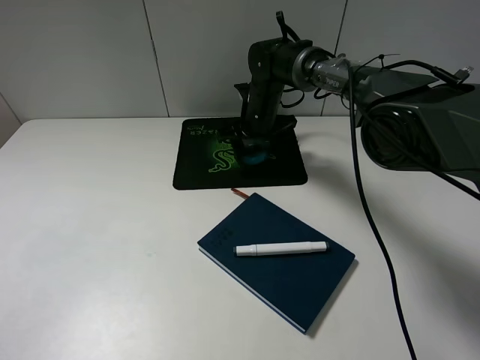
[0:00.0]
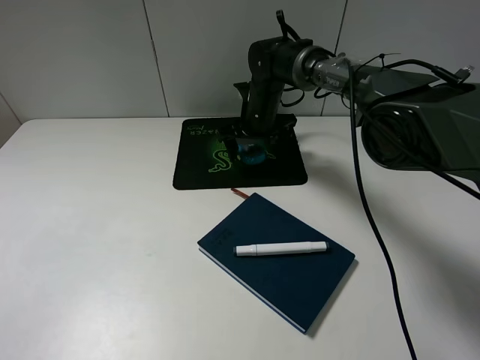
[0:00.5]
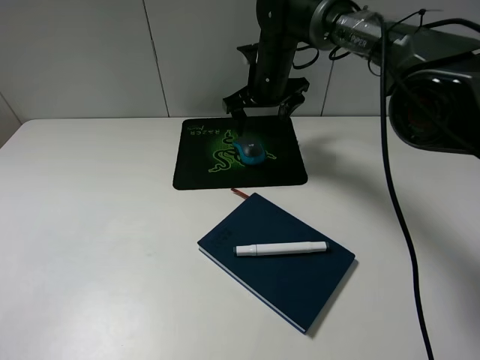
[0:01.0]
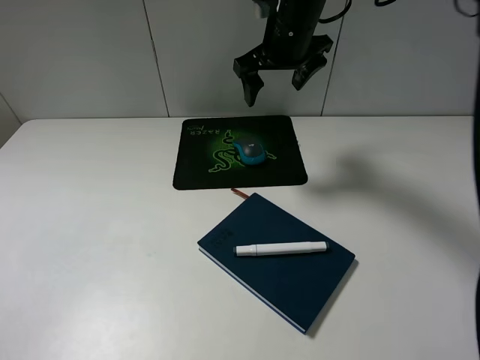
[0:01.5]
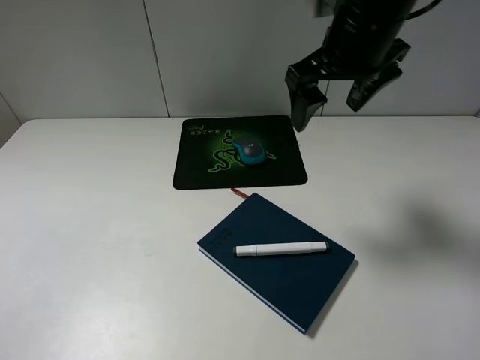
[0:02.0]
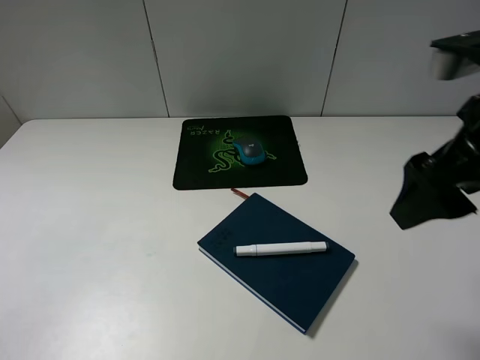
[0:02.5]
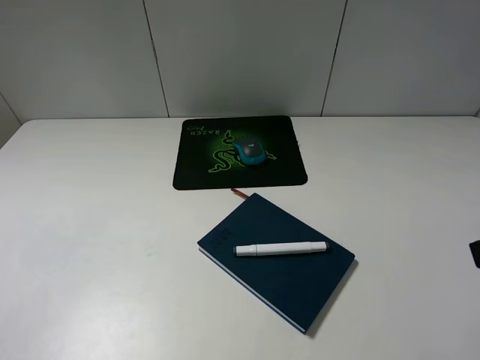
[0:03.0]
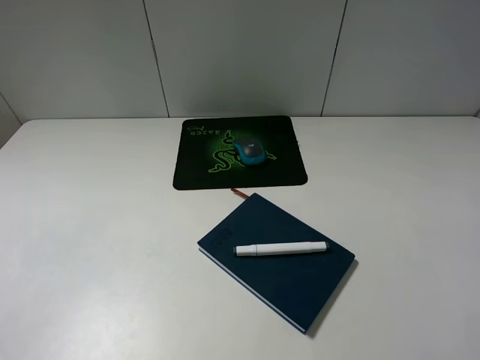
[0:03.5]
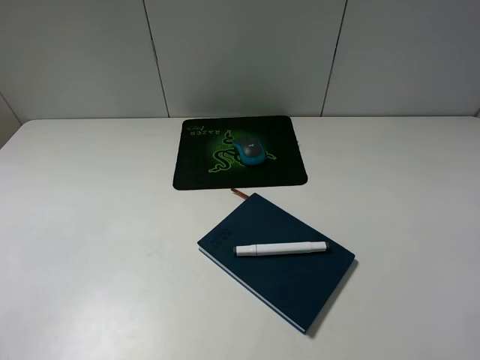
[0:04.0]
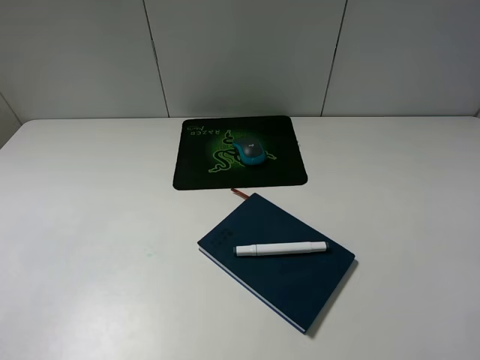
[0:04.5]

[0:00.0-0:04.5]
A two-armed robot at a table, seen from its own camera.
0.0 to 2.0 s: The right gripper is displaced upward, backward and to the right by about 30 cm.
2.0 to 4.5 s: The right gripper heads backward and to the right, covering about 35 cm.

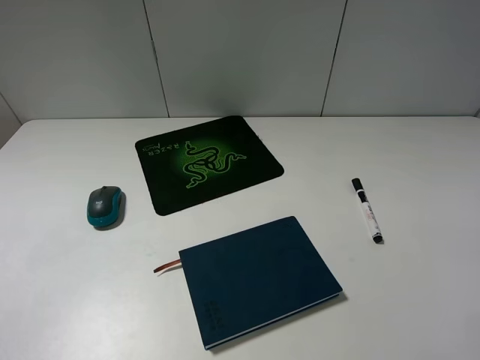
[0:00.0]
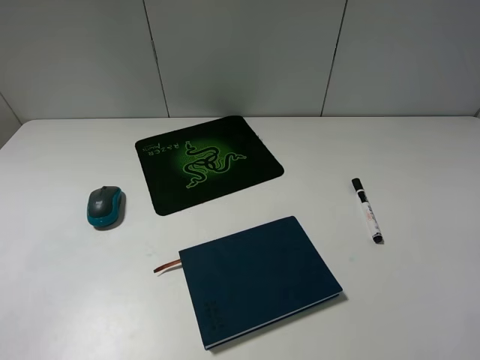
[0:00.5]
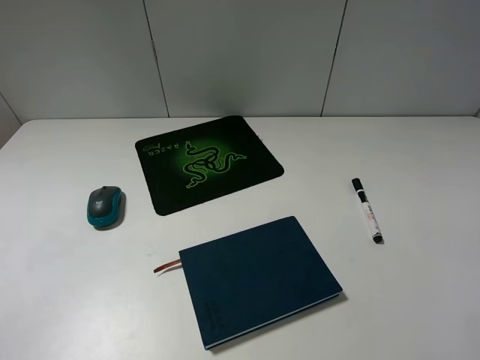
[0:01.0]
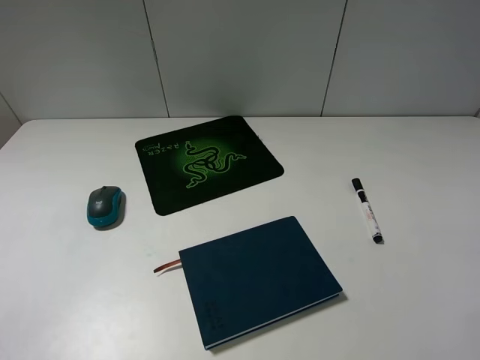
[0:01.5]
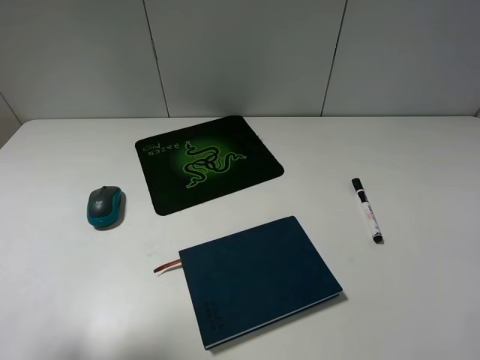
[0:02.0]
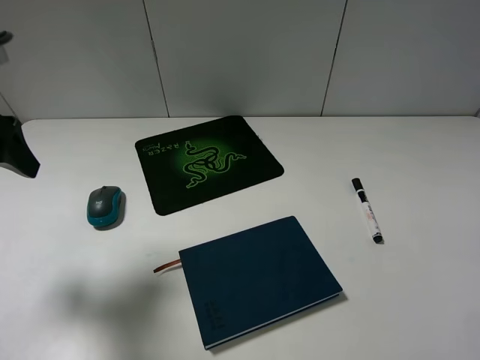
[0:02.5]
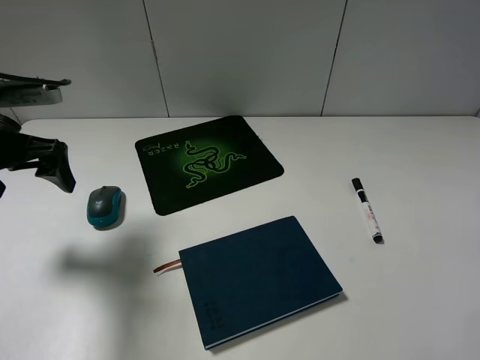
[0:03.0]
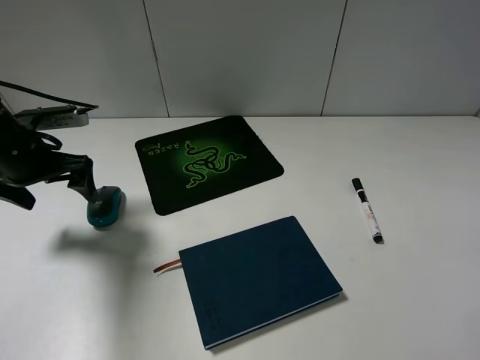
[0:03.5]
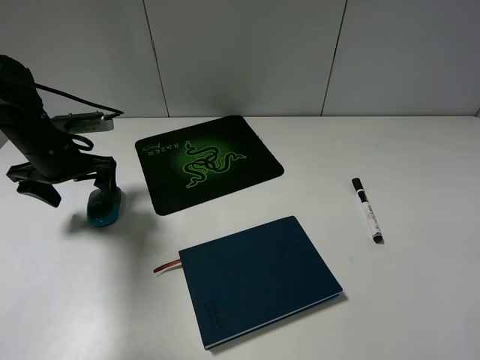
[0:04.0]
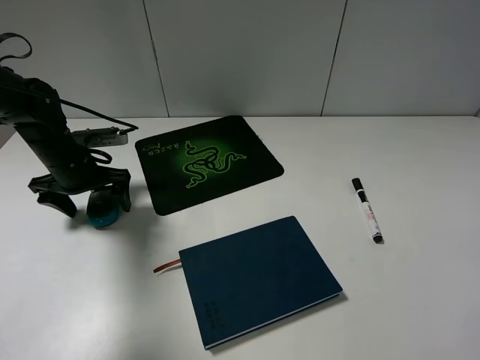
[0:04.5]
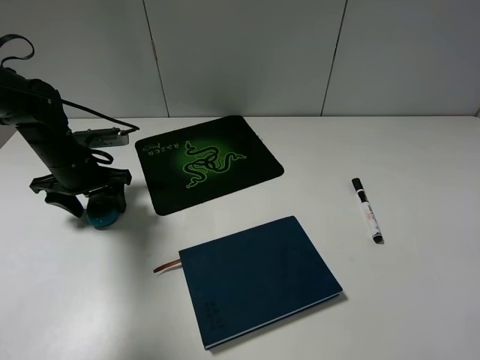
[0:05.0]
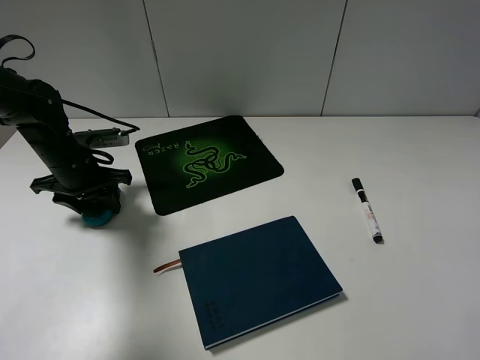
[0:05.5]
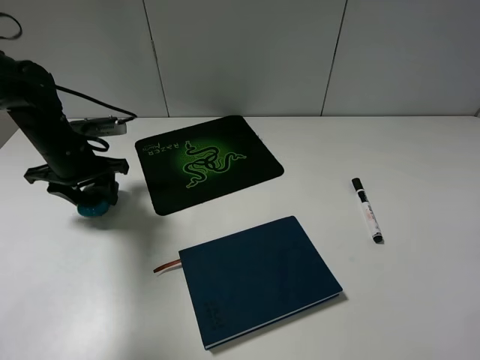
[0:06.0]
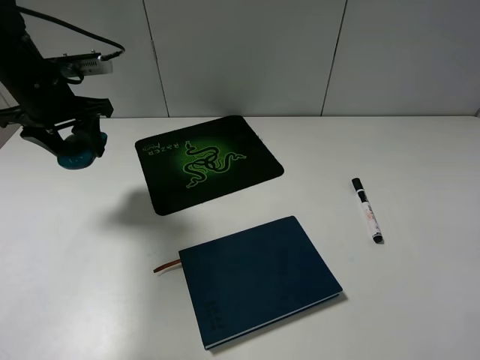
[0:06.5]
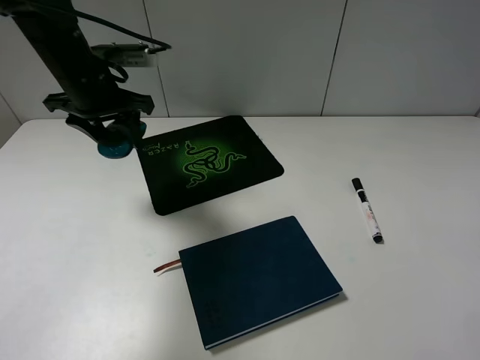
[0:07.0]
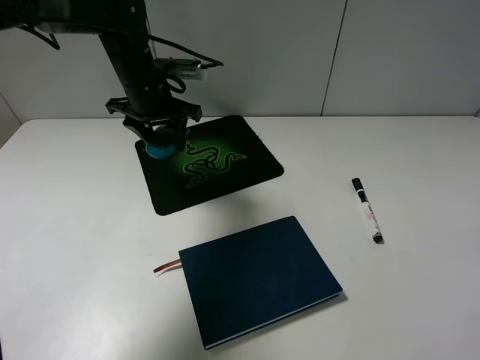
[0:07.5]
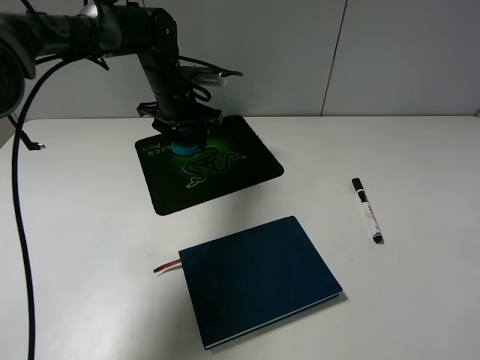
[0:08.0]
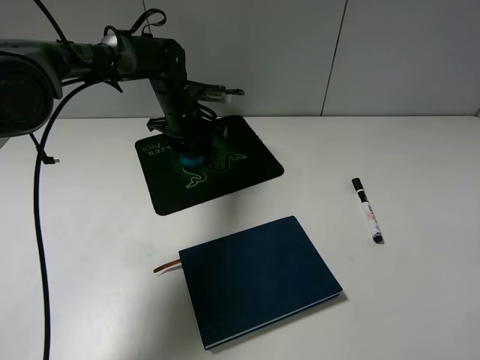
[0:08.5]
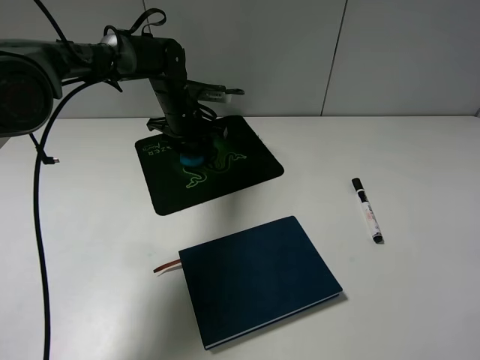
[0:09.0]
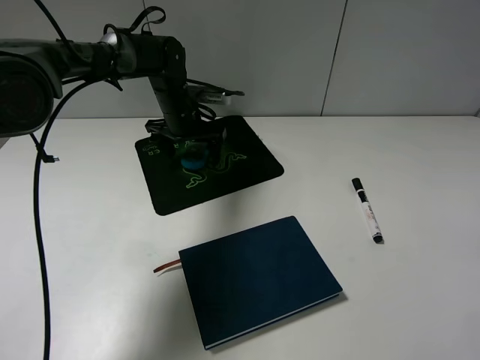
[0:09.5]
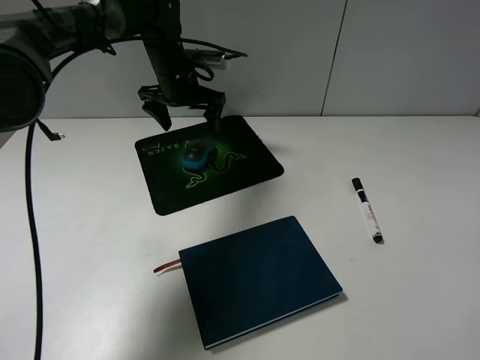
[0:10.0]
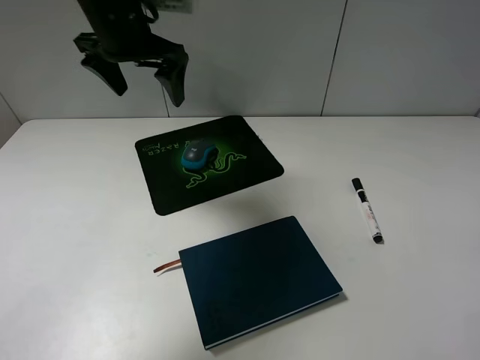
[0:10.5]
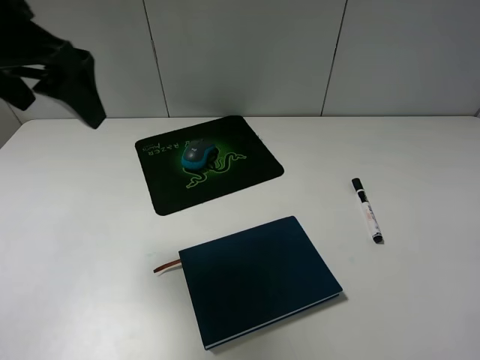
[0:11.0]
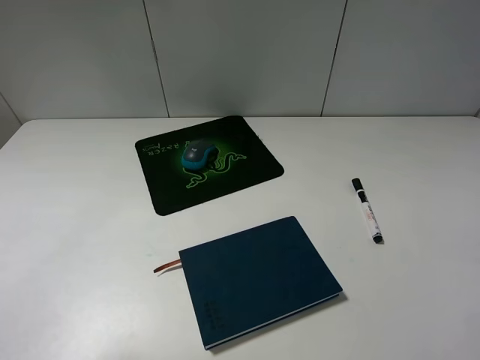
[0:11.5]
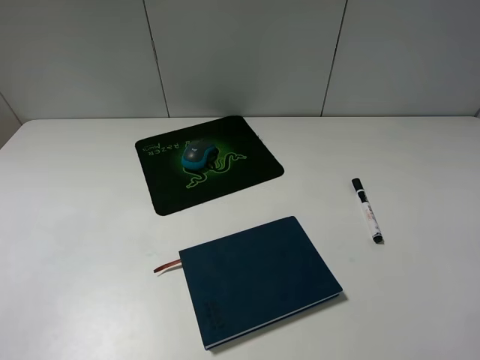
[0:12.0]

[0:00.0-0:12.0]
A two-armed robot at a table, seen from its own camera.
Step, 0.0 to 5.0 s: Grasp the mouse with the left gripper.
Step, 5.5 to 9.5 s: Place the mouse on the mouse pad with the left gripper.
0.0 to 2.0 s: The left gripper shifts some 15 cm forward and upward.
2.0 to 4.0 s: The left gripper goes about 30 cm forward and downward.
4.0 to 6.0 s: The left gripper closes.
6.0 to 8.0 s: The left gripper travels to the right and forward by about 20 cm.
8.0 to 10.0 s: The left gripper opens.
10.0 to 12.0 s: The left gripper heads backward and to the left, covering roughly 50 cm.

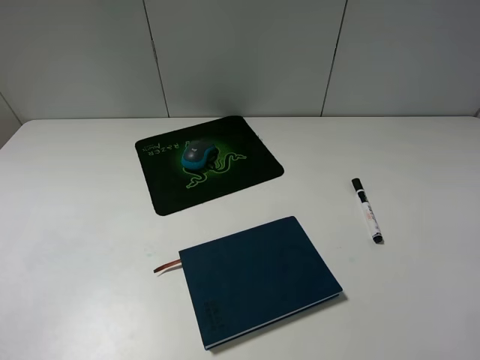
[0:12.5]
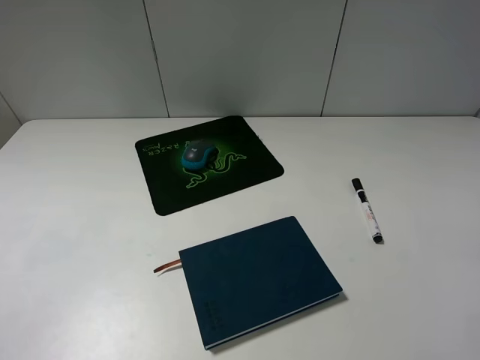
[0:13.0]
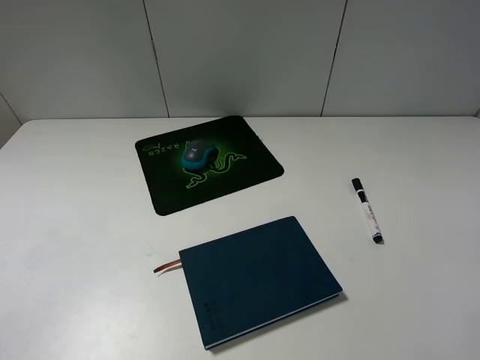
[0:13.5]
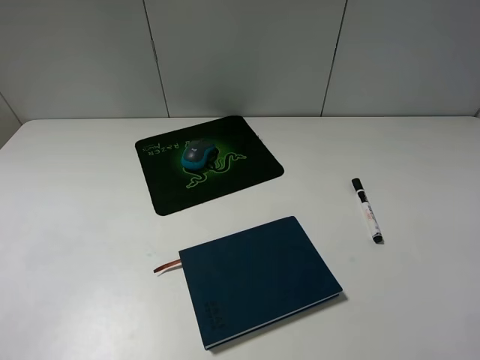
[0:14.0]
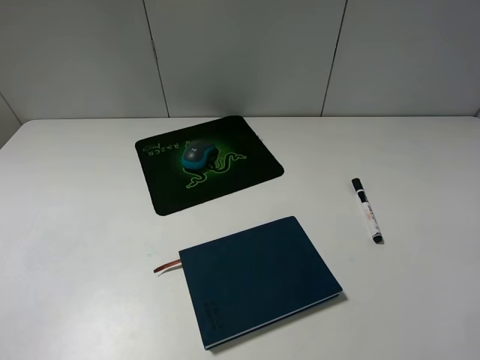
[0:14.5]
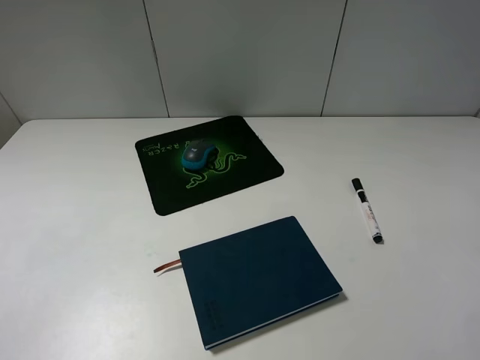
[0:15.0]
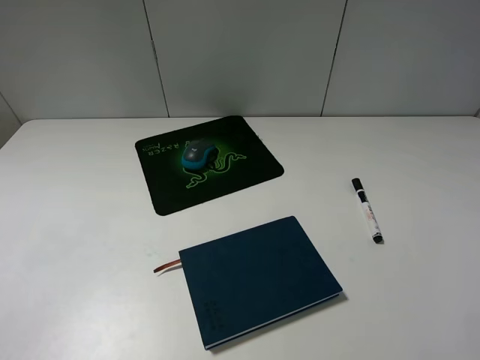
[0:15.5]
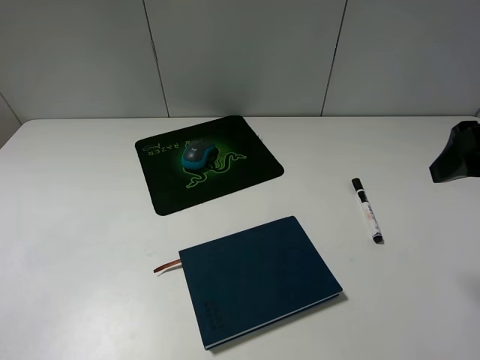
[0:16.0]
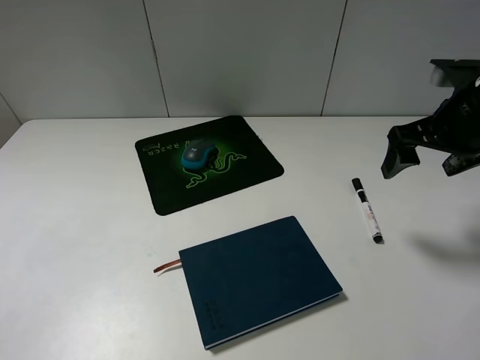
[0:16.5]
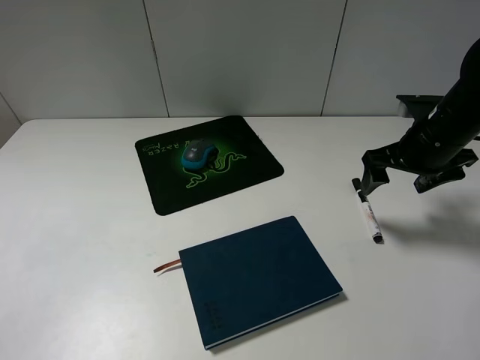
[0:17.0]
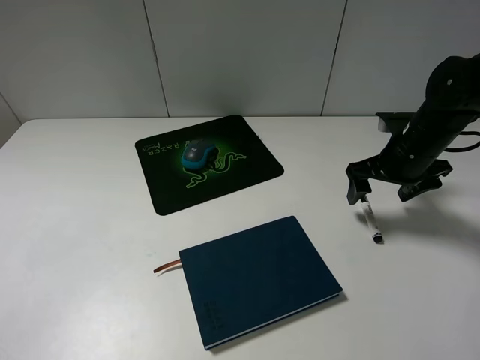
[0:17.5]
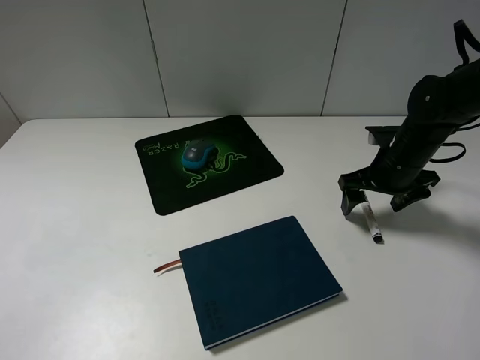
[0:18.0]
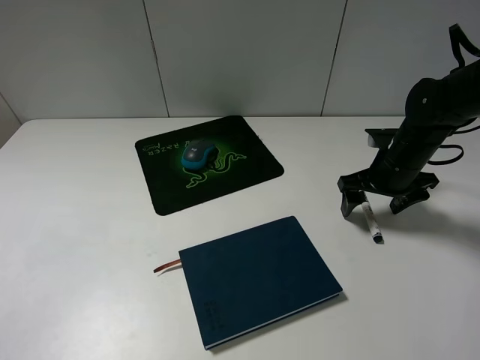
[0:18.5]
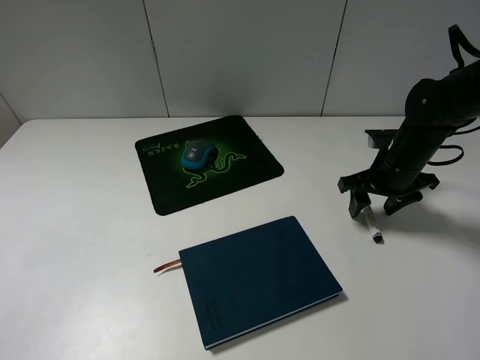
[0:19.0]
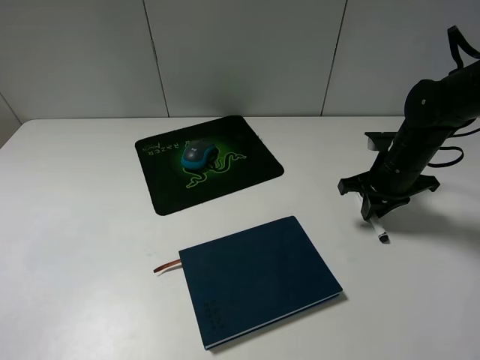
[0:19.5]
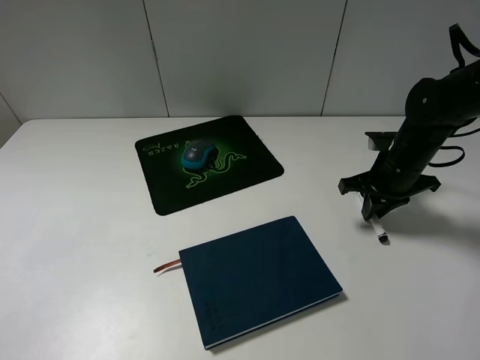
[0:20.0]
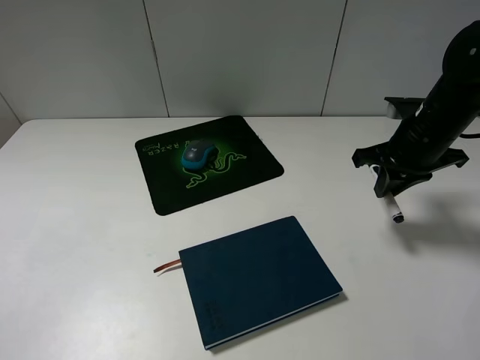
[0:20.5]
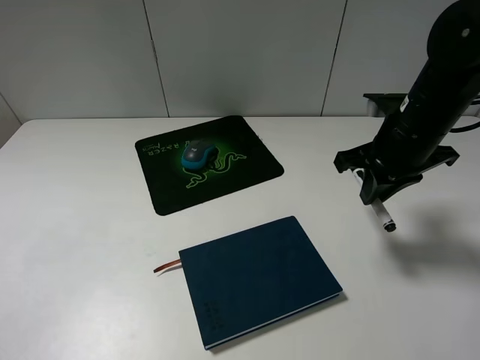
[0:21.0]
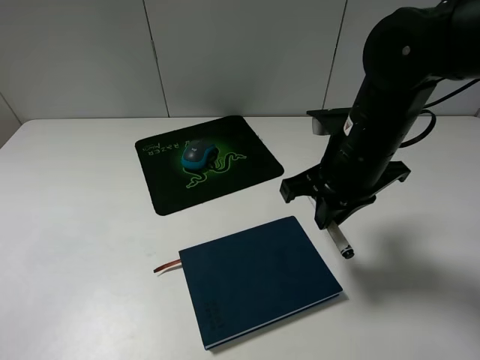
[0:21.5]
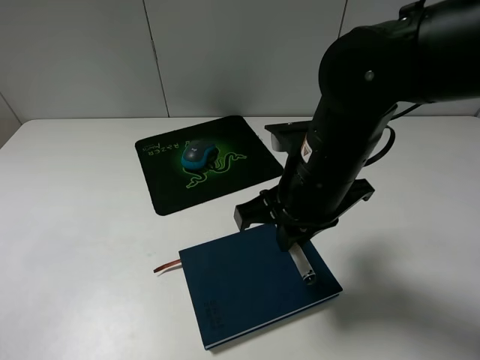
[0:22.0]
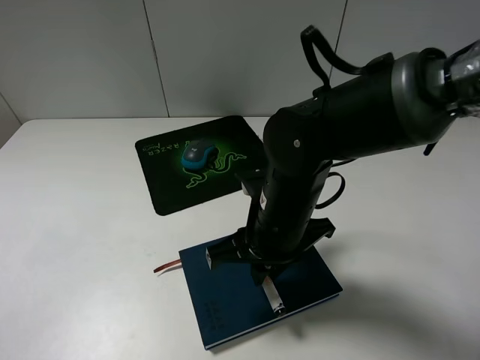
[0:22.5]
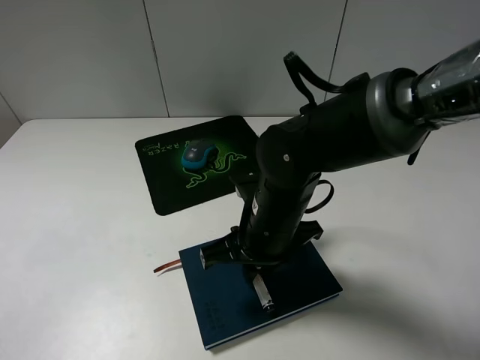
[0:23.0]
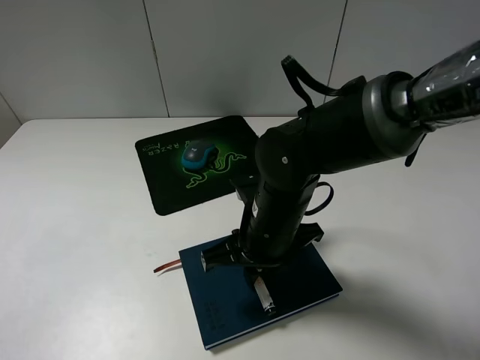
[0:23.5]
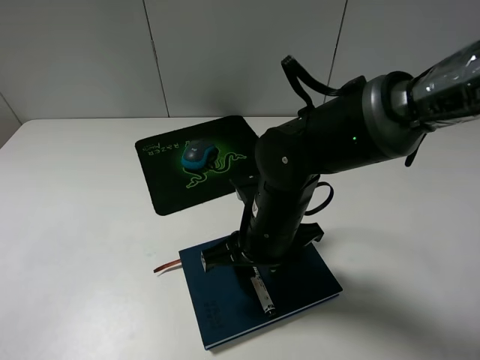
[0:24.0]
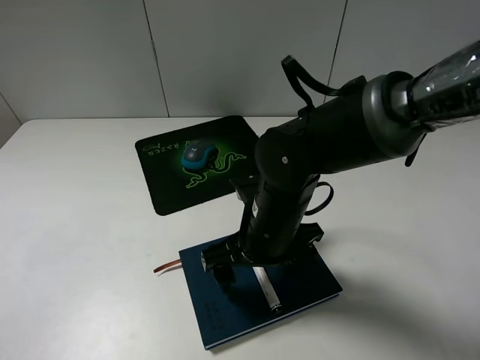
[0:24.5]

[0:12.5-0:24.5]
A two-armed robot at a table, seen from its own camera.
Step, 12.5 to 19.0 s: Grasp the marker with the right gripper.
12.5 to 14.5 s: Both grippers stay about where they are.
14.5 to 16.5 s: The right gripper is displaced forward by approximately 30 cm.
16.5 to 18.5 s: The right gripper travels downward and forward by about 15 cm.
18.5 to 20.5 s: The right gripper goes some 5 cm upward, and closes.
20.5 to 22.5 s: The right gripper shifts roughly 25 cm to the left and backward.
22.5 to 24.5 s: The right gripper opens its fingers.
